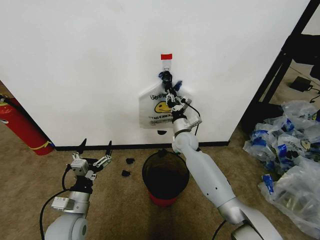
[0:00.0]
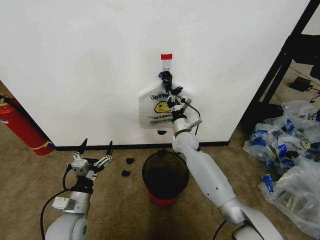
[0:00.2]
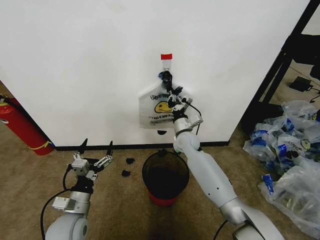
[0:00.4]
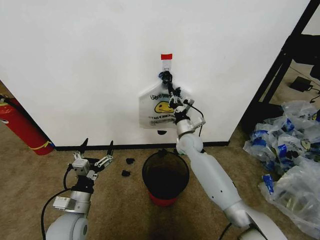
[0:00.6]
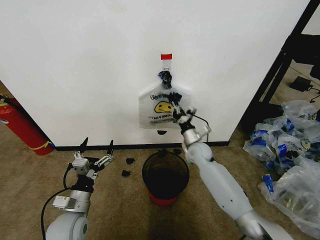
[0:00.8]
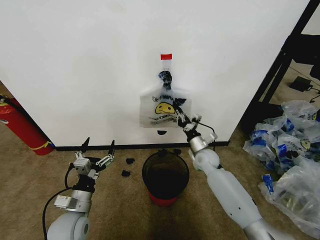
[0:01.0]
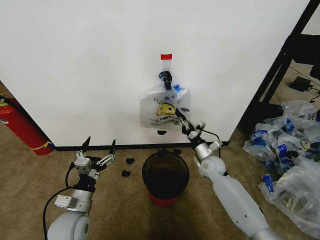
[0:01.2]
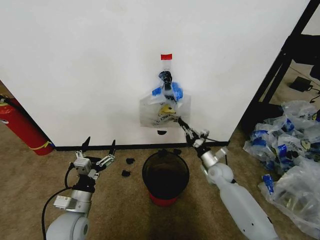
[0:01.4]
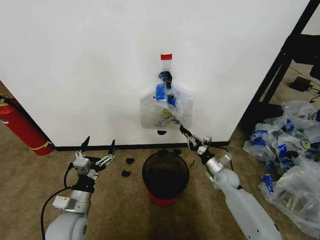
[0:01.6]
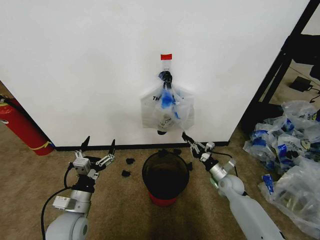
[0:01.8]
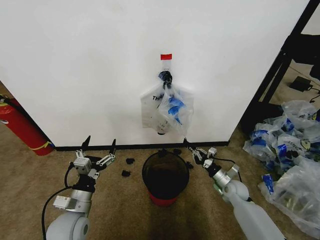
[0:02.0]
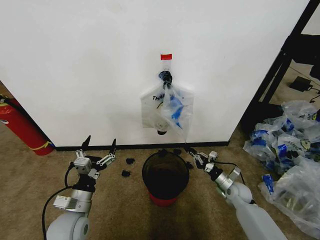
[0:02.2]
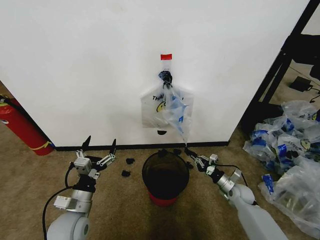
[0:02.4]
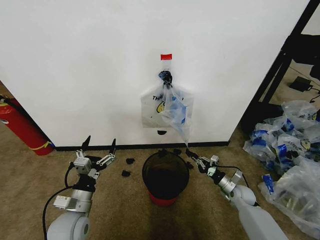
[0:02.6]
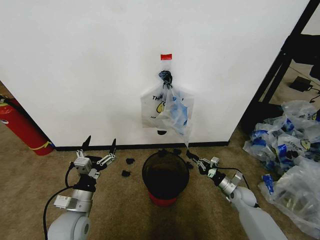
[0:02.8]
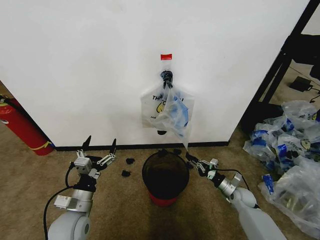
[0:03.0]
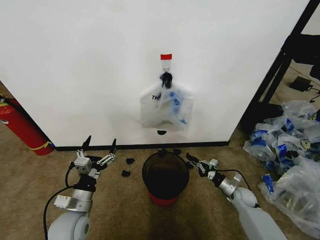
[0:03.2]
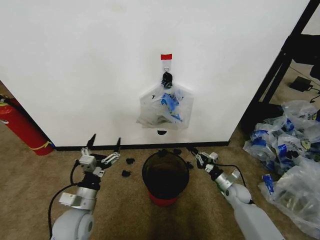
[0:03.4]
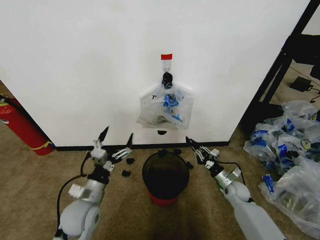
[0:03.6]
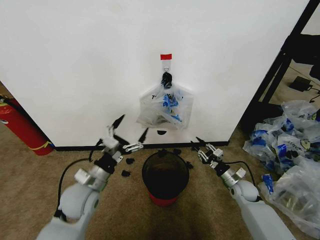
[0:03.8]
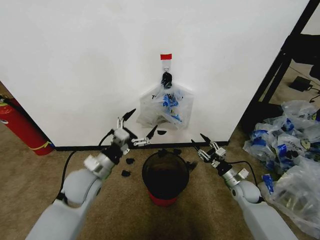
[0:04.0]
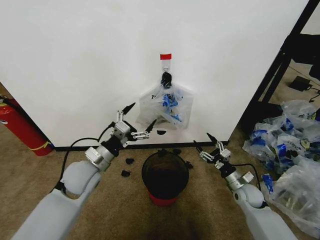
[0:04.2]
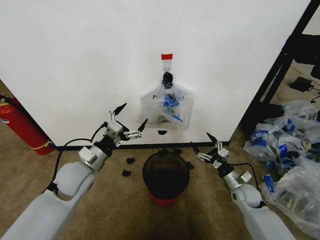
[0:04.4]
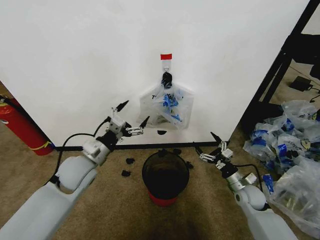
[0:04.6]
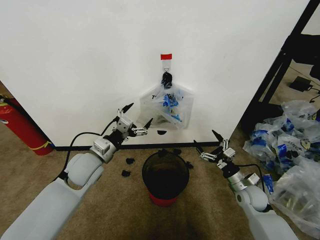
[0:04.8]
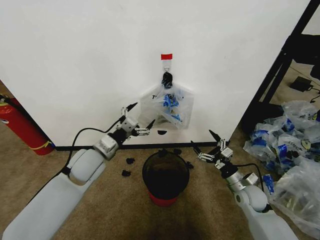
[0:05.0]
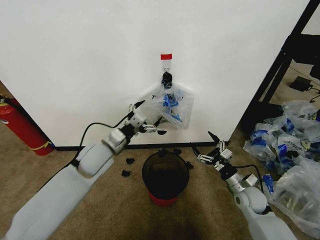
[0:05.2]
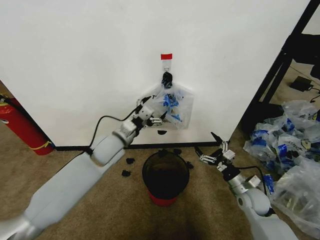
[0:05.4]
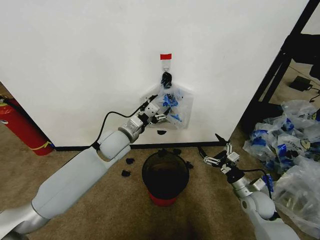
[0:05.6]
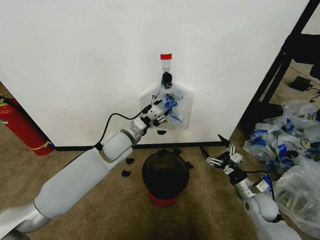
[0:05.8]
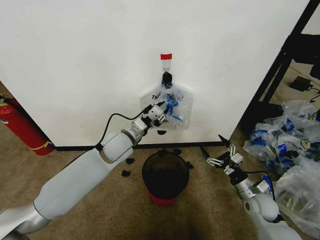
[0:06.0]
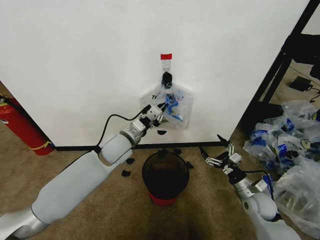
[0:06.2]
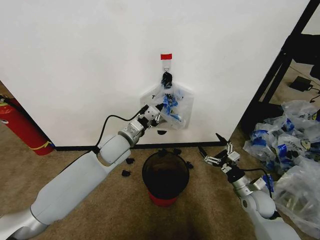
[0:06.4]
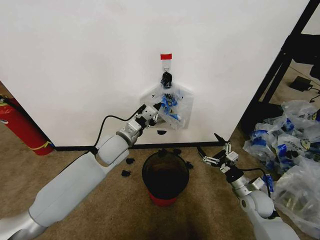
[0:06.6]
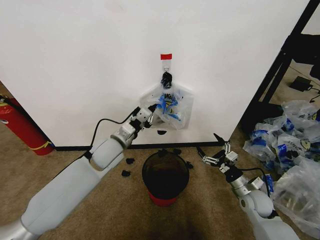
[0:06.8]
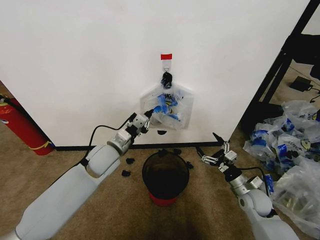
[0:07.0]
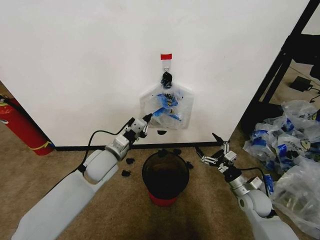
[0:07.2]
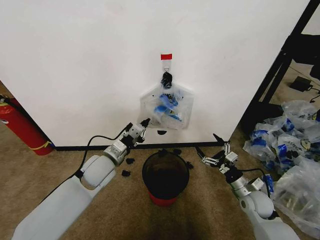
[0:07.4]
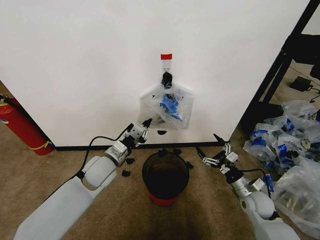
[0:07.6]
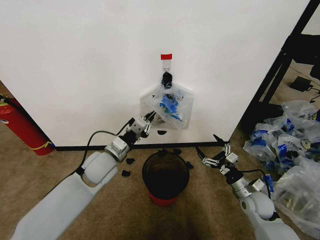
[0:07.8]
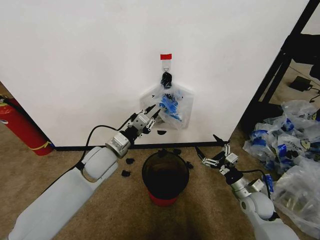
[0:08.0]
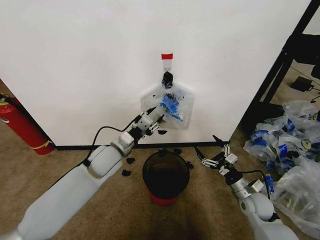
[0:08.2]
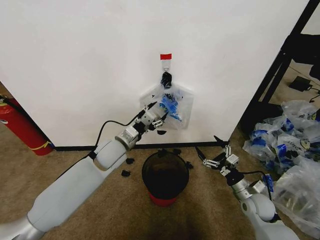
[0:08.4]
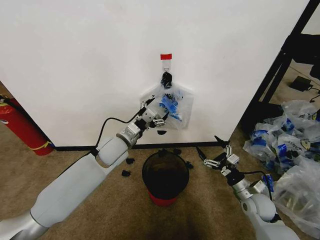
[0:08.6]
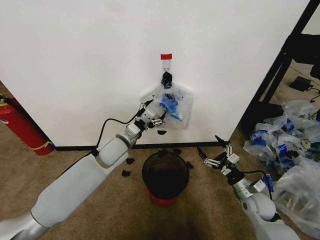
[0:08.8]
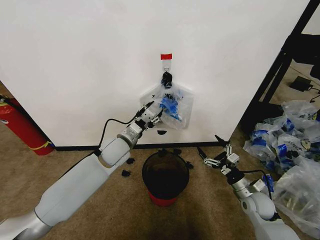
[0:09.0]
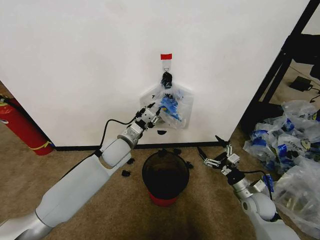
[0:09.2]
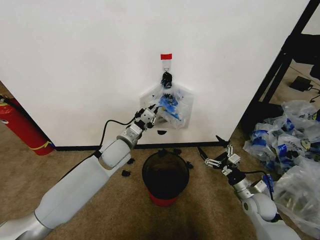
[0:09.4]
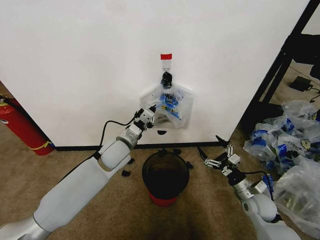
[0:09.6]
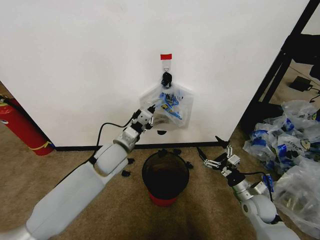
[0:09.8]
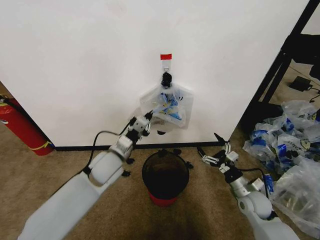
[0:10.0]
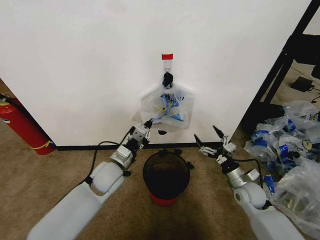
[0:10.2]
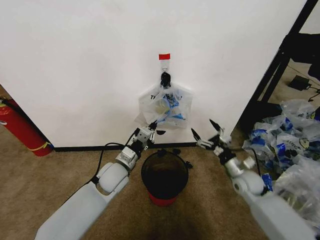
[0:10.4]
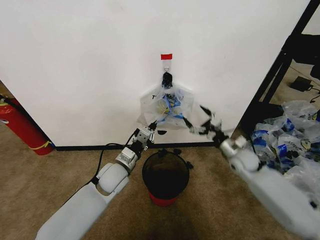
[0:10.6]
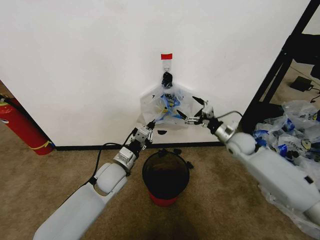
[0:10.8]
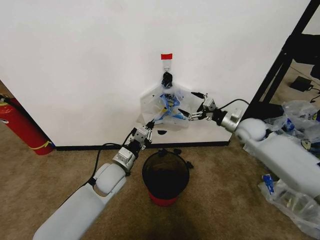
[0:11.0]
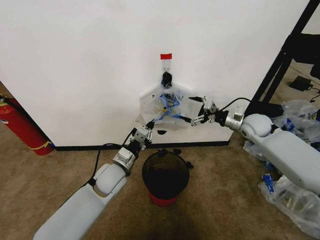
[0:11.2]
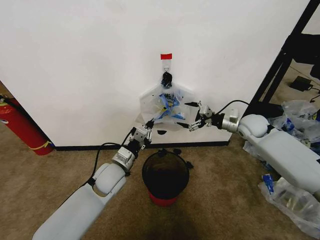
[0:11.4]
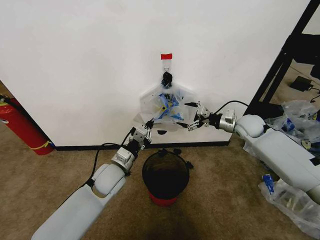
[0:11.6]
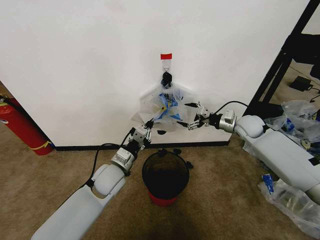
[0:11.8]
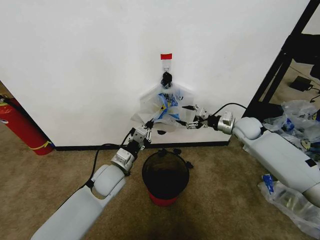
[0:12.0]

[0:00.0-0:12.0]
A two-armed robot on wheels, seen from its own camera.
Task of the whole recording: Pick up the garbage bag from the wall and place it over the trash bin.
0:00.0 to 0:01.6: The right gripper shifts some 25 cm to the right, downward and backward.
0:01.6 to 0:03.0: The right gripper travels to the right, downward and backward by about 10 cm.
0:03.0 to 0:04.4: The left gripper travels forward and upward by about 15 cm; the right gripper is displaced upward by some 5 cm, and opens.
0:04.4 to 0:06.0: The left gripper shifts roughly 15 cm to the right and forward, and closes, while the right gripper moves approximately 5 cm.
0:06.0 to 0:07.6: The left gripper travels backward, to the left and downward by about 10 cm.
0:07.6 to 0:09.0: The left gripper goes some 5 cm forward, and opens.
0:09.0 to 0:10.4: The left gripper is displaced backward and downward by about 10 cm, and closes. Meanwhile the right gripper shifts roughly 5 cm forward.
0:10.4 to 0:12.0: The right gripper heads forward and upward, covering roughly 20 cm.

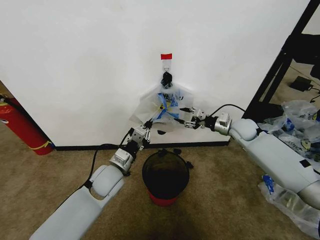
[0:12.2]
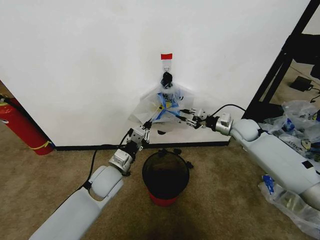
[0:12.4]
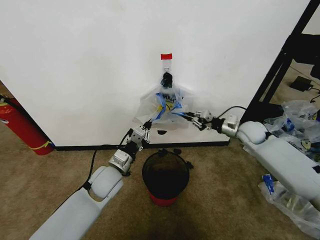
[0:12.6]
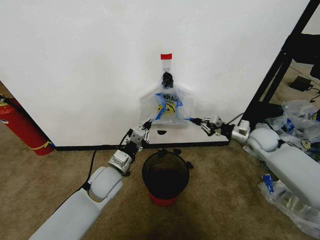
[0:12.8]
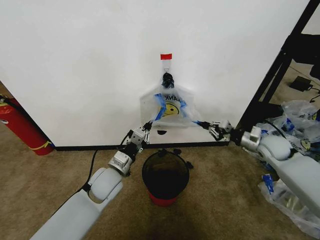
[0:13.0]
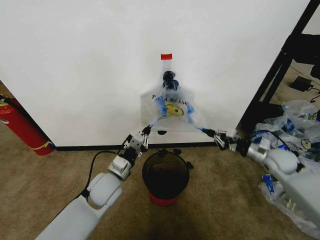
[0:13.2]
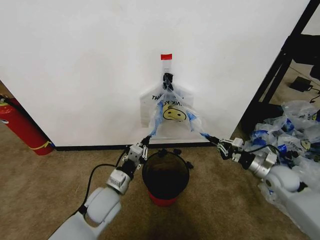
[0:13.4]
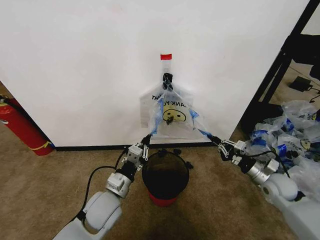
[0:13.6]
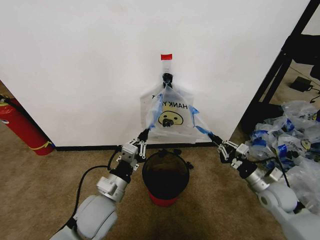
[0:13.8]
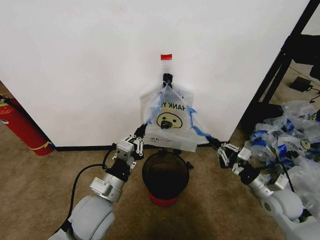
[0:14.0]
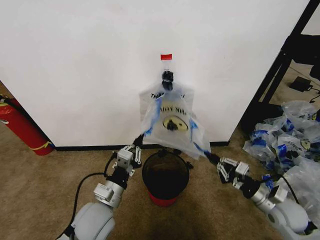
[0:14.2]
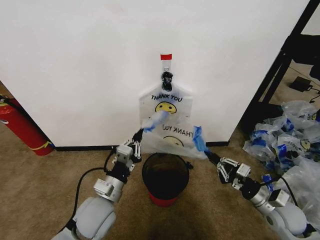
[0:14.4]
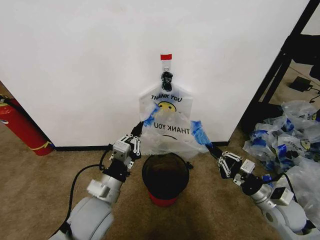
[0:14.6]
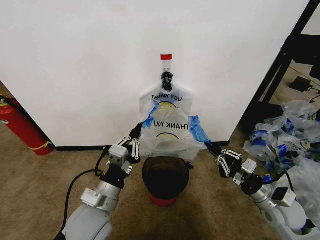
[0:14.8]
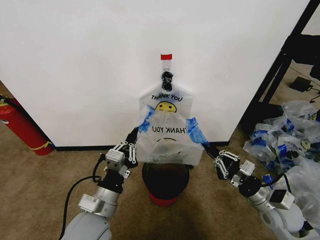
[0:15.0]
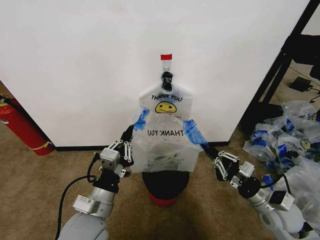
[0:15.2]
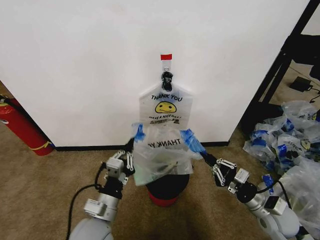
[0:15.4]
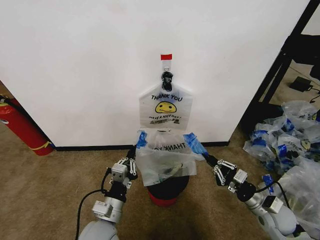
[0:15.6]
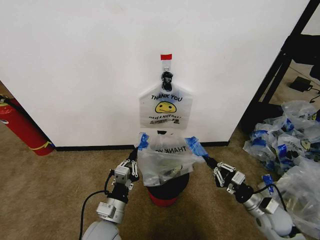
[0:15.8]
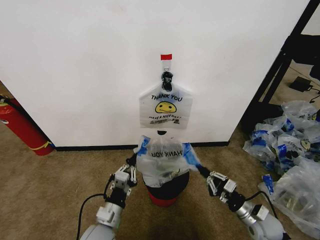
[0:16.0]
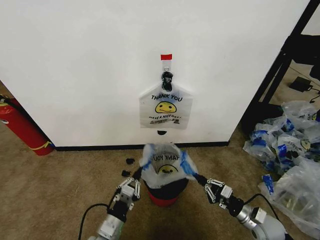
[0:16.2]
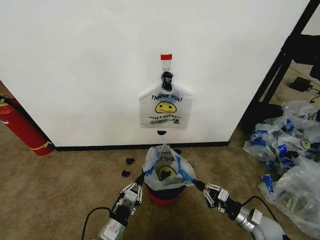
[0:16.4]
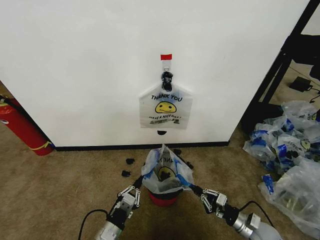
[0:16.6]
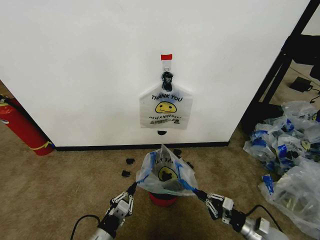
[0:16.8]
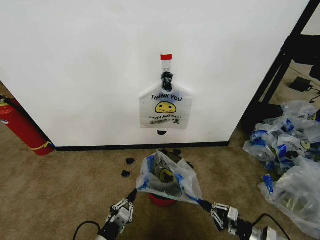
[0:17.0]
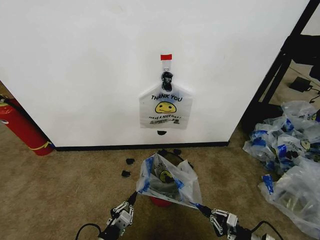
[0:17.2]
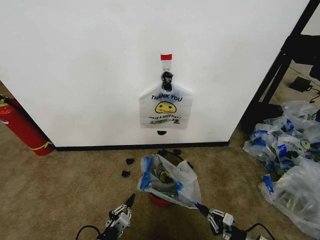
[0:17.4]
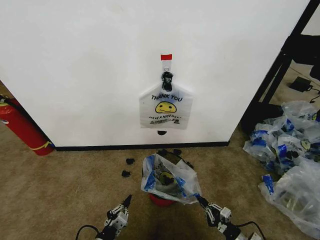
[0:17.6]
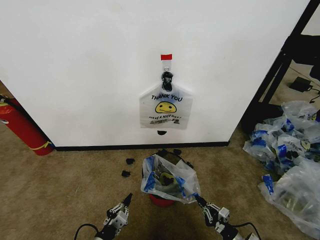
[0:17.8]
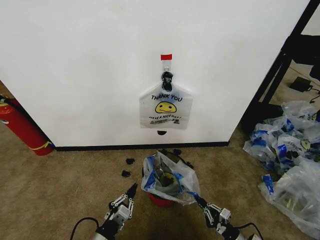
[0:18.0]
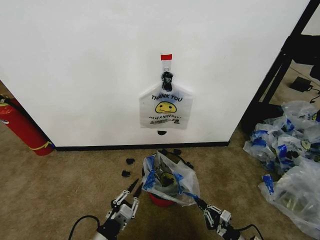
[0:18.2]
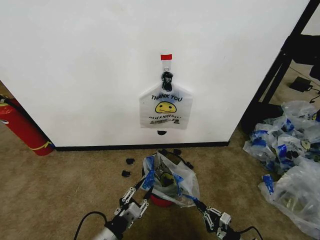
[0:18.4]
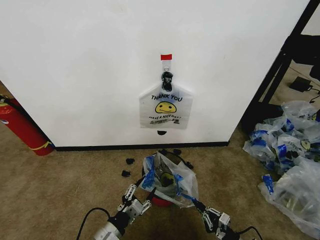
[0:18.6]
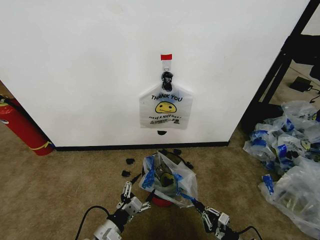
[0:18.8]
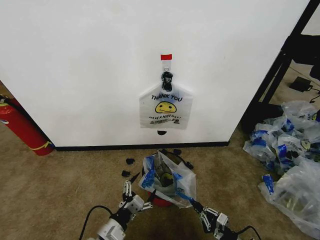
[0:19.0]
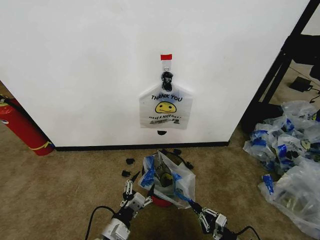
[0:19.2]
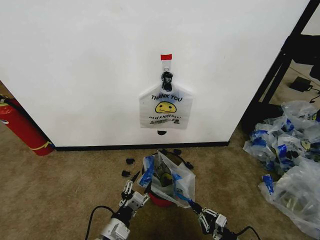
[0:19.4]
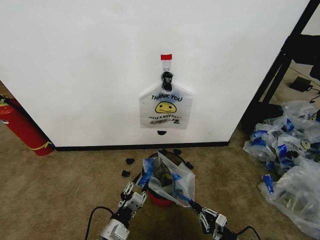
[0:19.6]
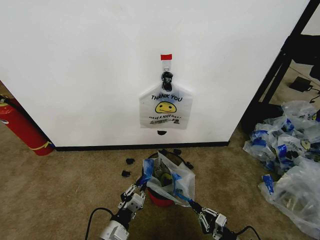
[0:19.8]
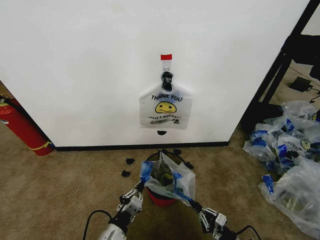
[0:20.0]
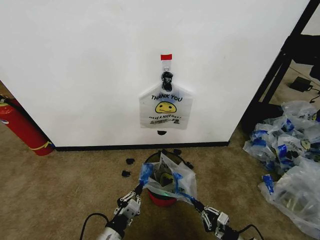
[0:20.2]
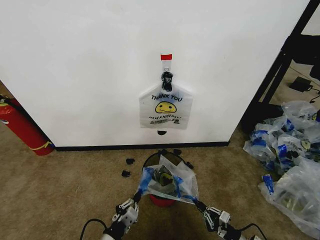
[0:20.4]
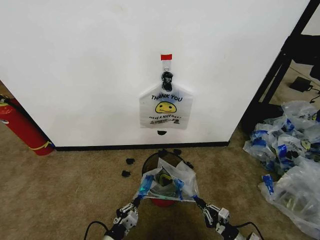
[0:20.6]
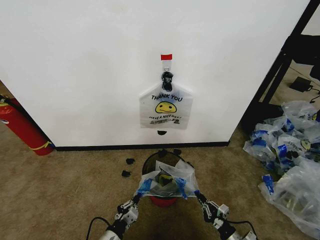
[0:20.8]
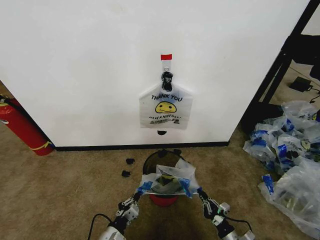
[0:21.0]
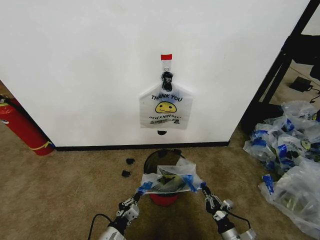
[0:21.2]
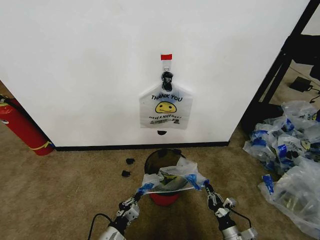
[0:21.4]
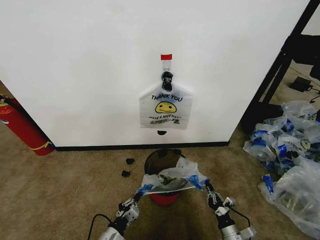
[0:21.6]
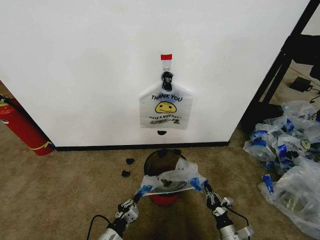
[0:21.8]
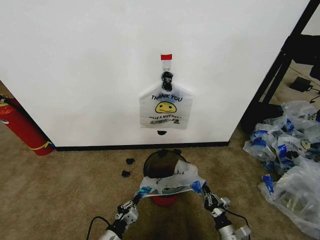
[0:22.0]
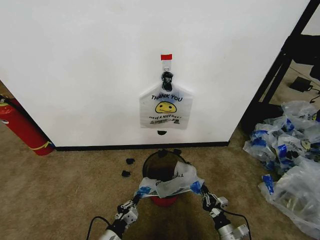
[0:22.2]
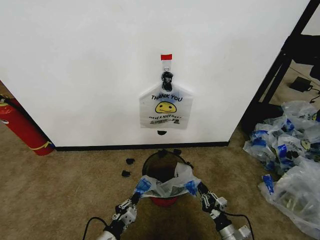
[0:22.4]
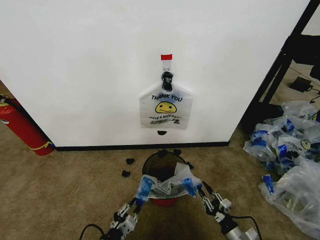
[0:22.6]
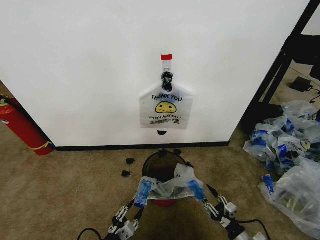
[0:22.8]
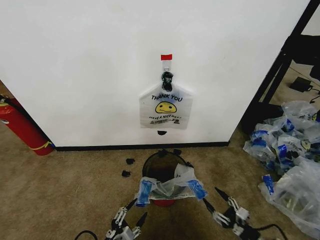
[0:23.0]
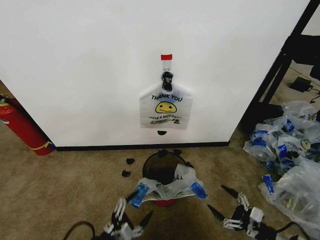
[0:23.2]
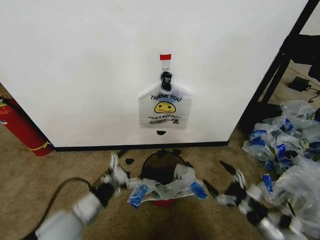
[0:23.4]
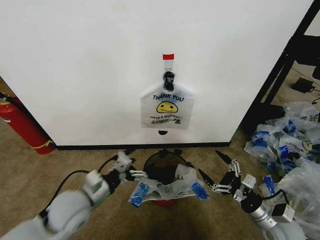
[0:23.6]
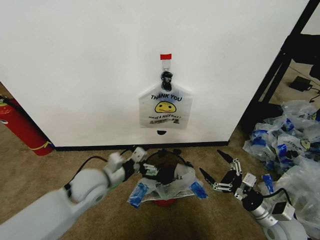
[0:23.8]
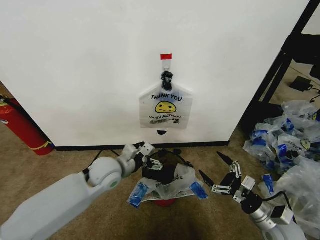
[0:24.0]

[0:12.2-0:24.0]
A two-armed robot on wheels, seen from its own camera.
Task of the whole recording: Pick up the garbage bag from the wall and place it over the trash bin.
0:12.2 to 0:13.6: The left gripper goes some 10 cm backward. The right gripper shifts approximately 20 cm backward and downward, and closes.
0:13.6 to 0:15.2: The right gripper travels backward and to the left by approximately 10 cm. Meanwhile the left gripper goes some 5 cm backward.
0:15.2 to 0:16.6: The two grippers go some 15 cm downward.
0:16.6 to 0:18.2: The left gripper moves roughly 5 cm; the right gripper is displaced backward and downward by some 10 cm.
0:18.2 to 0:19.6: The left gripper moves about 5 cm, and opens and closes again.
0:19.6 to 0:21.0: The left gripper shifts approximately 10 cm downward, and closes its fingers.
0:21.0 to 0:22.6: The left gripper changes place by roughly 5 cm.
0:22.6 to 0:24.0: The right gripper goes some 15 cm upward, and opens. The left gripper is displaced forward and upward by about 30 cm, and opens its fingers.
